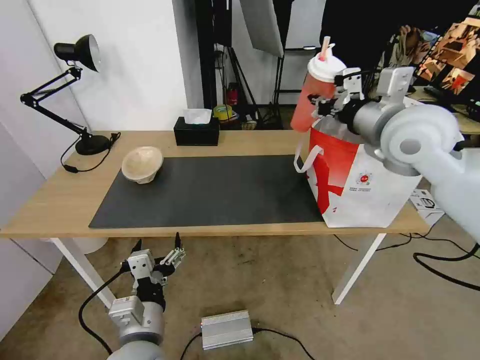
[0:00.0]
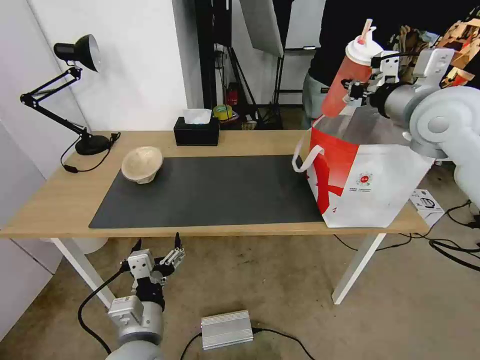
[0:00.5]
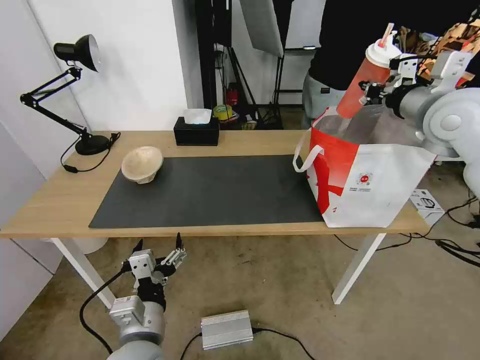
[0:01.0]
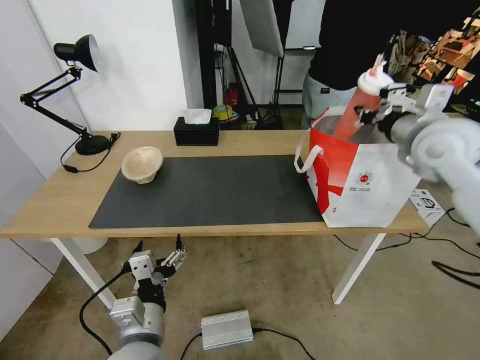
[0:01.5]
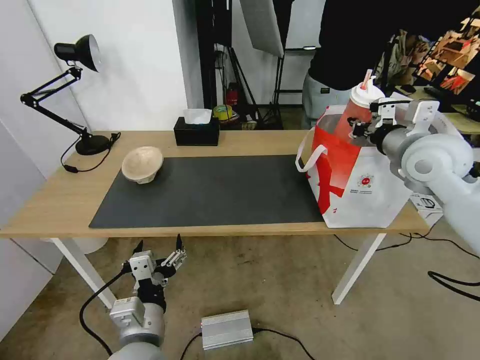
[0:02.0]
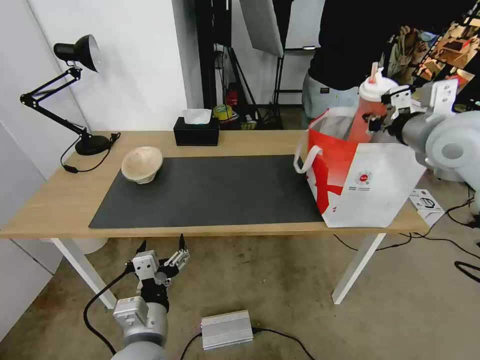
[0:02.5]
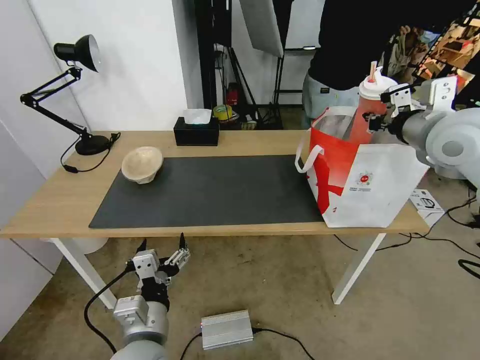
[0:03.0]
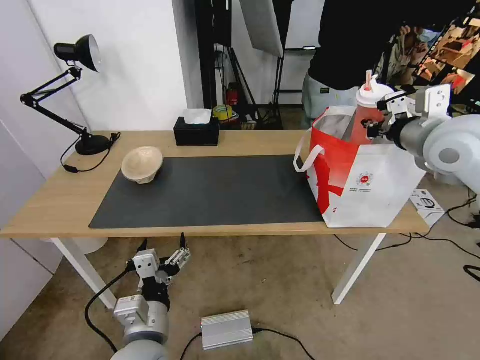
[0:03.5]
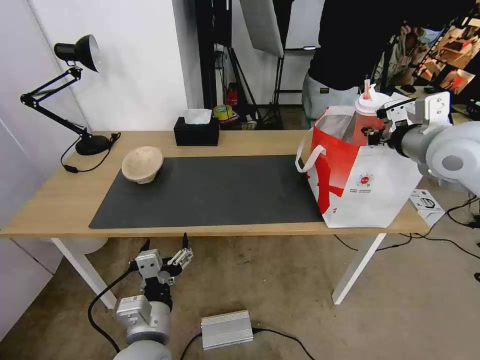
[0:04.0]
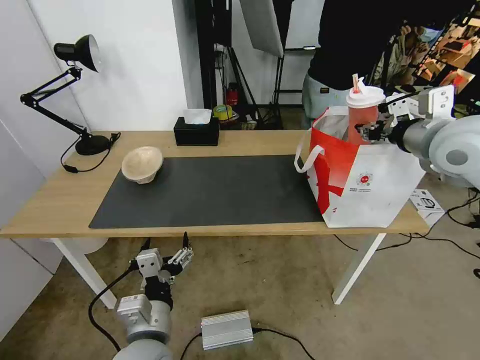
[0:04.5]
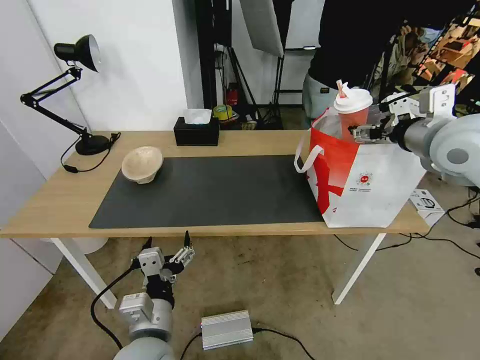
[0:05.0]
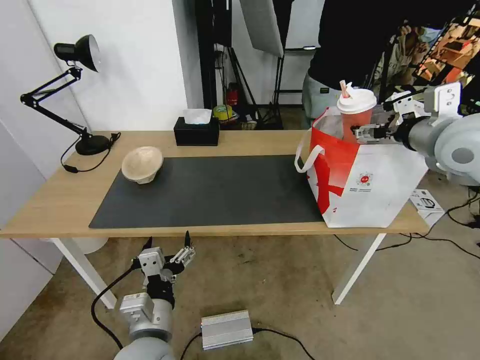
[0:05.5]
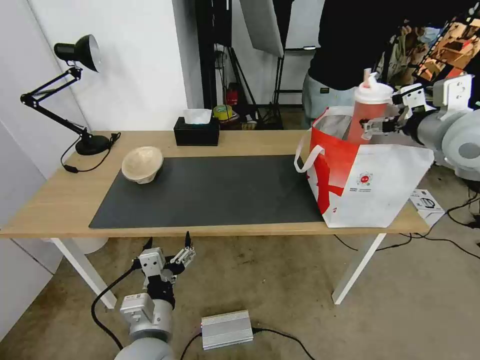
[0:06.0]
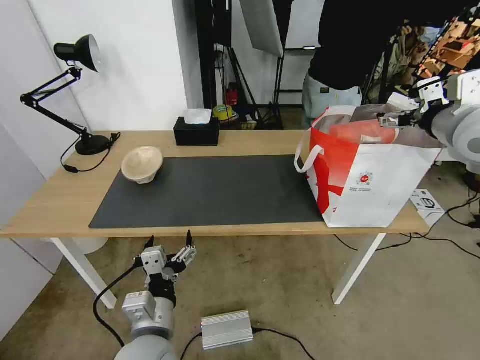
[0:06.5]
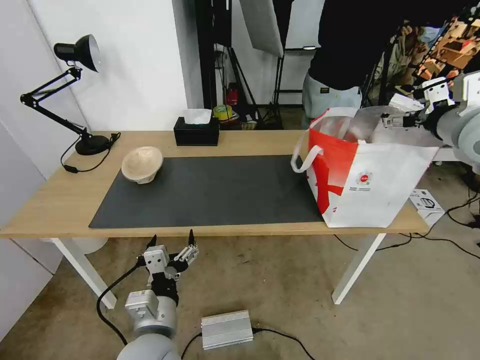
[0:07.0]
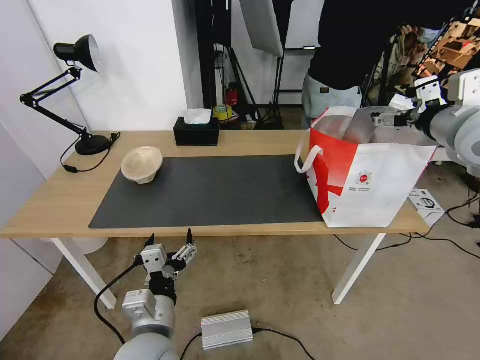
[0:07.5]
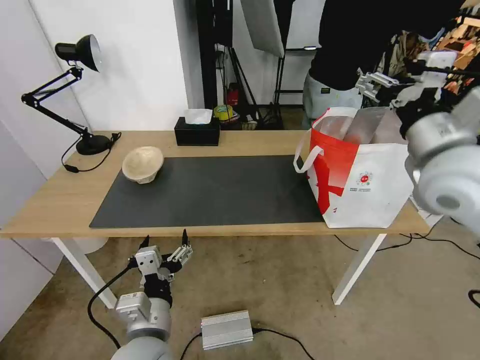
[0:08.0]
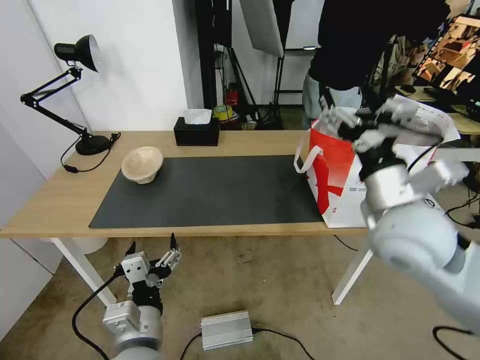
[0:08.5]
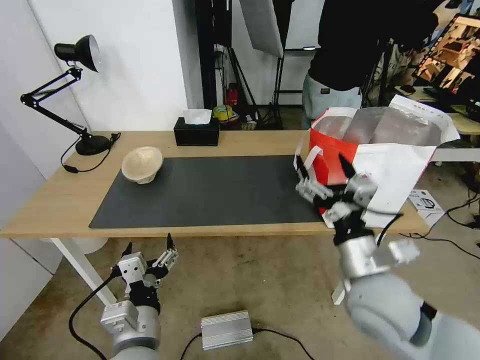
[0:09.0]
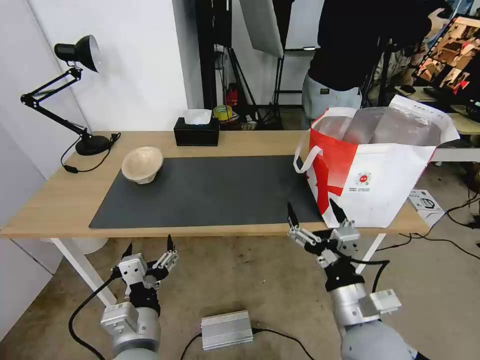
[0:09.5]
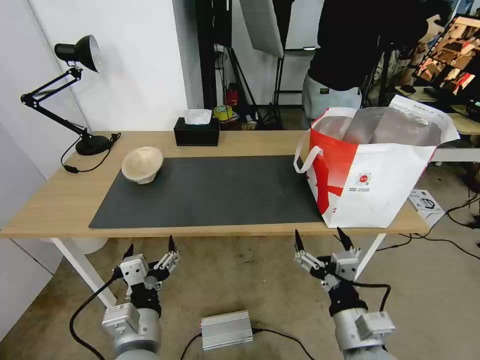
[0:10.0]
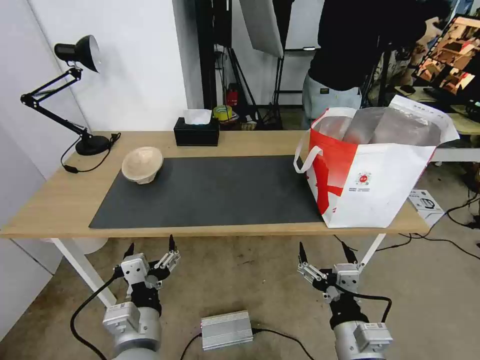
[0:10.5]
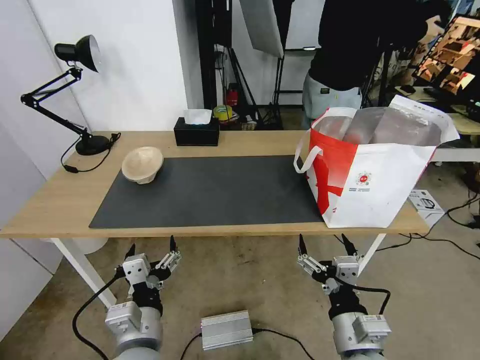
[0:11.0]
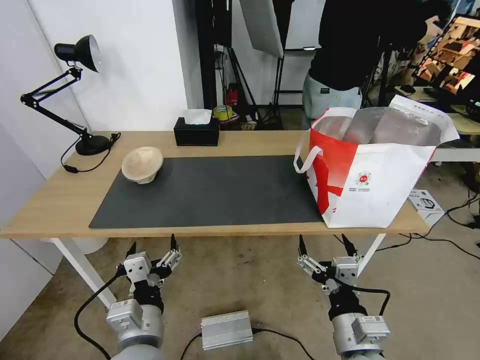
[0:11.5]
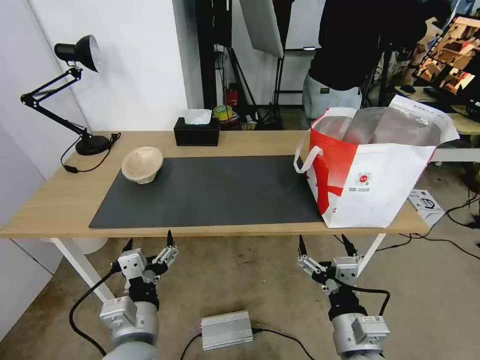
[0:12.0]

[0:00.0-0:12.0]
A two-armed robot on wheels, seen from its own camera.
Task of the whole recording: Pick up the trash from the table and place it into the takeout bag.
0:00.0 to 0:02.0: The right gripper travels to the right and downward by approximately 10 cm.
0:02.0 to 0:04.0: There are only small adjustments of the grippers.
0:04.0 to 0:06.0: The right gripper opens.
0:06.0 to 0:08.0: The right gripper heads backward and to the left, covering approximately 10 cm.
0:08.0 to 0:10.0: The right gripper heads downward and backward, covering some 30 cm.
0:10.0 to 0:12.0: The grippers move only a little.

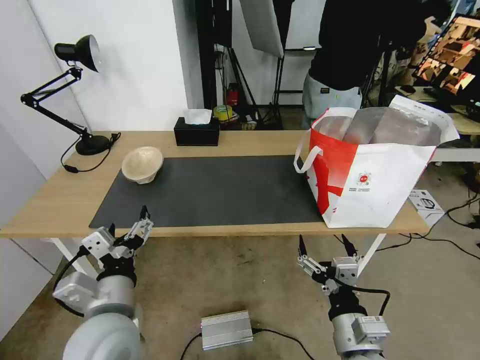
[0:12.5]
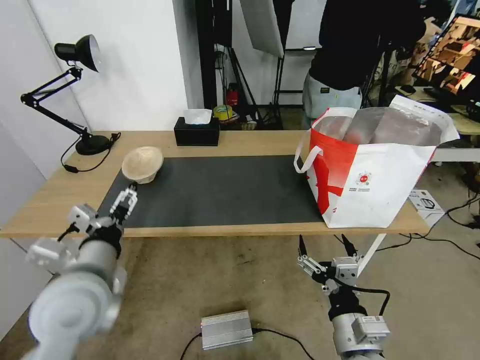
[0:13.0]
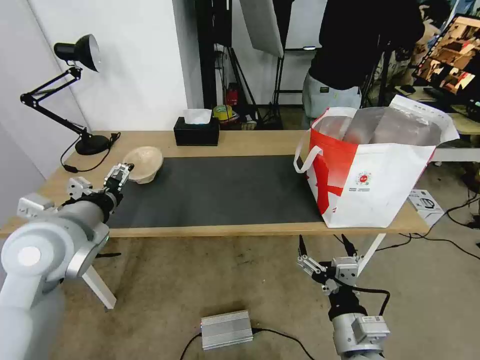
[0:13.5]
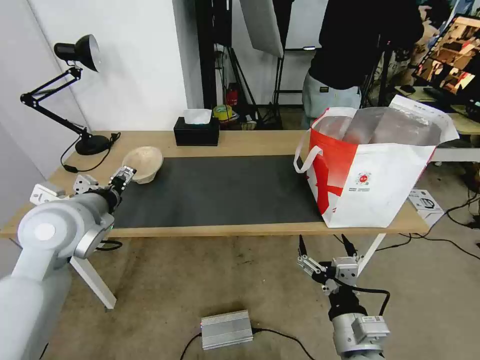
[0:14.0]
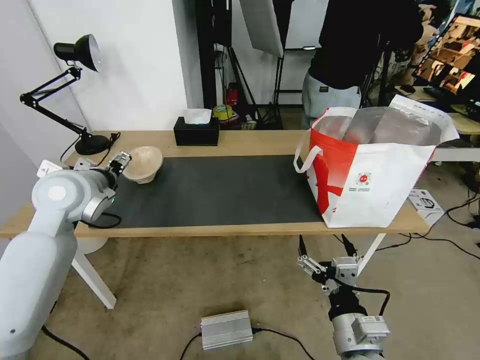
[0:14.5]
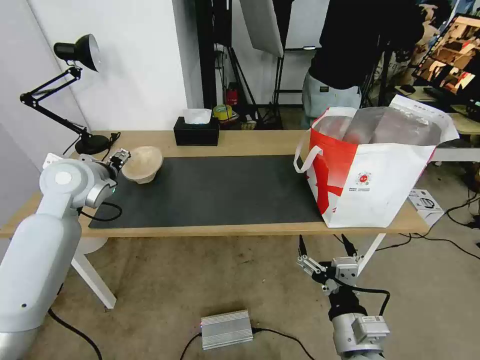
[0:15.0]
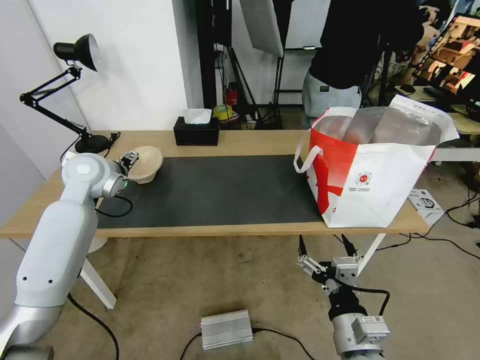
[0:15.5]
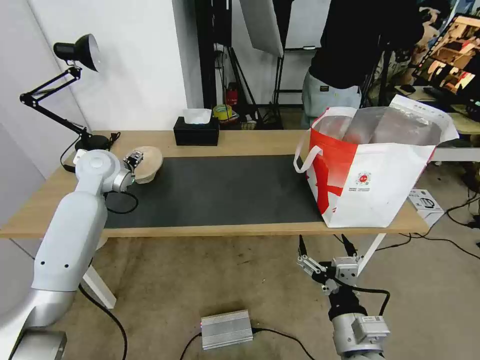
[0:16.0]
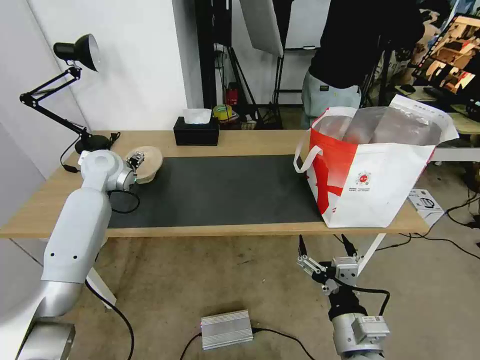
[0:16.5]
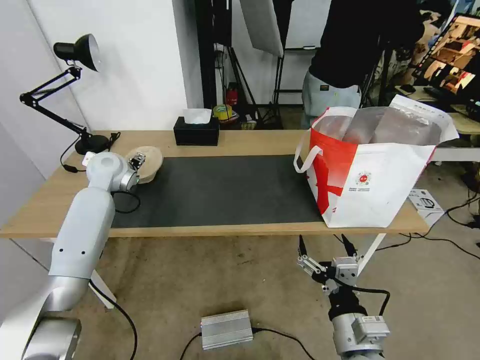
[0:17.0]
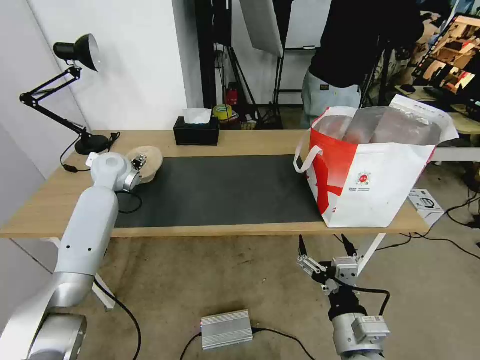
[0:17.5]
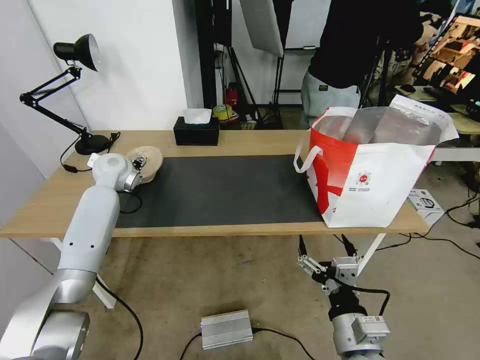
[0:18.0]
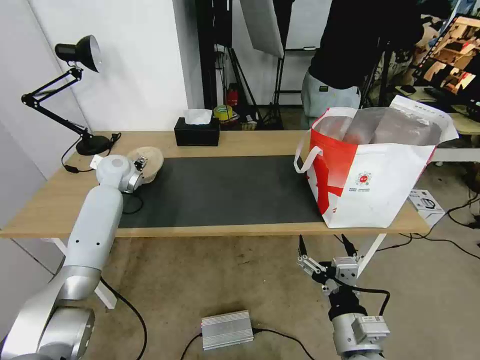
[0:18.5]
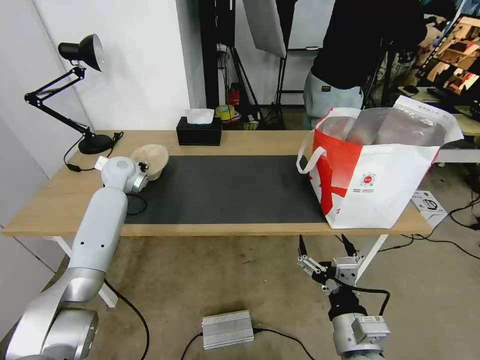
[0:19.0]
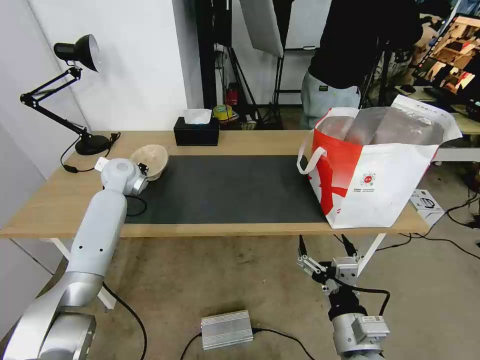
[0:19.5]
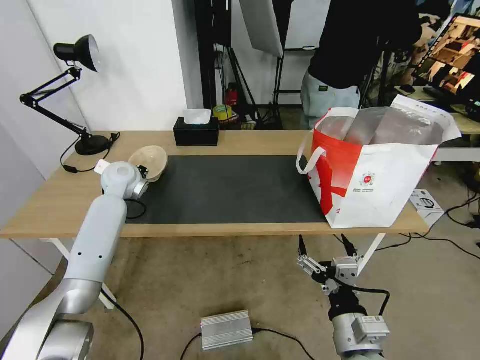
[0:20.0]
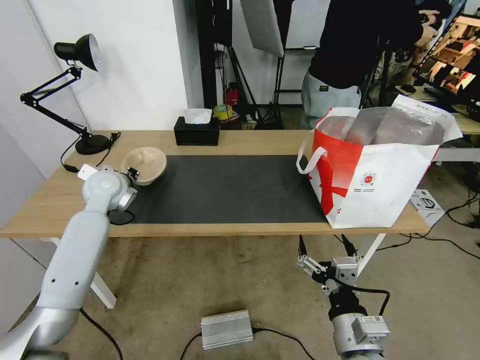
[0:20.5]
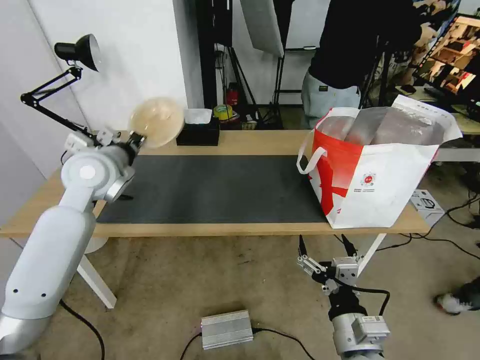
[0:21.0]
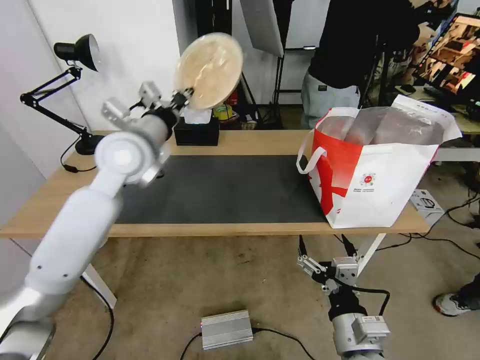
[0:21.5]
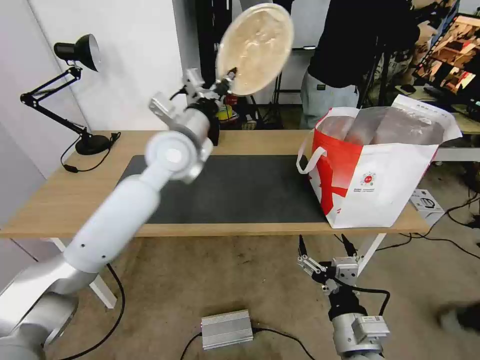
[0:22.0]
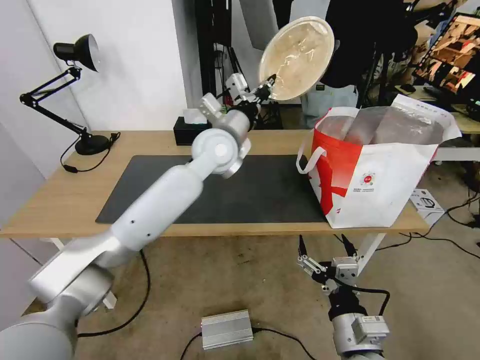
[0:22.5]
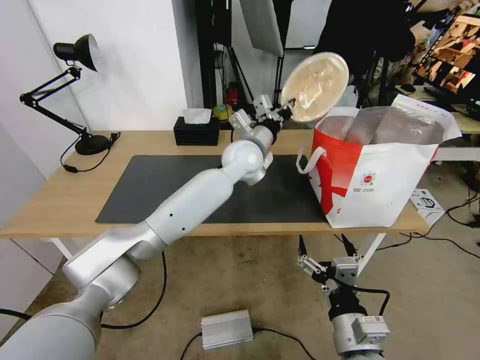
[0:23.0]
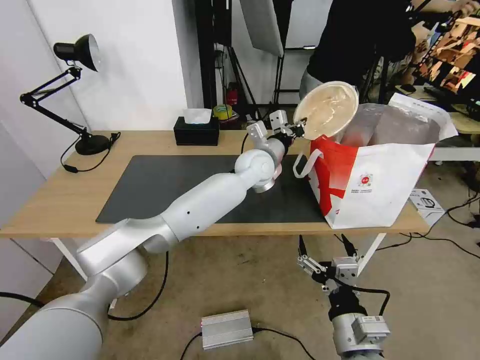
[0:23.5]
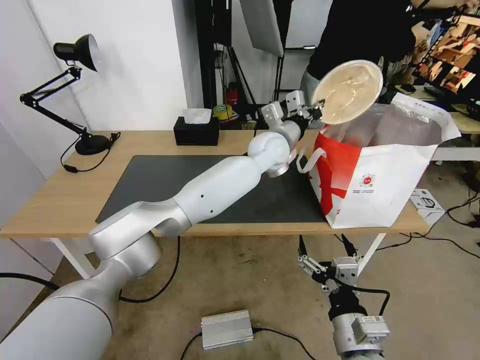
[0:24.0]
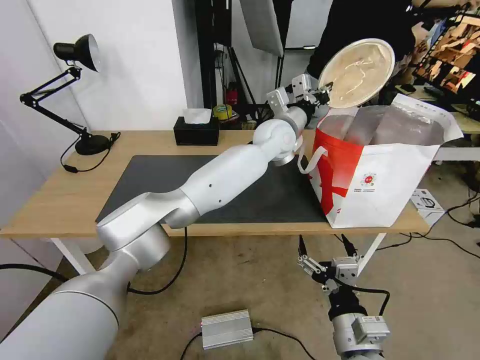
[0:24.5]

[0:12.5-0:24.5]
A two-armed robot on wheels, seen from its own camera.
Task of the whole recording: Pick up the trash from the table and place it into the takeout bag.
0:12.5 to 0:14.5: The left gripper is displaced forward, upward and to the left by about 25 cm.
0:14.5 to 0:16.5: The left gripper is displaced forward by about 15 cm.
0:16.5 to 0:18.5: The left gripper changes place by about 5 cm.
0:18.5 to 0:20.5: The left gripper travels backward by about 10 cm, and closes.
0:20.5 to 0:22.5: The left gripper travels to the right by about 25 cm.
0:22.5 to 0:24.5: The left gripper heads to the right and forward, covering approximately 15 cm.

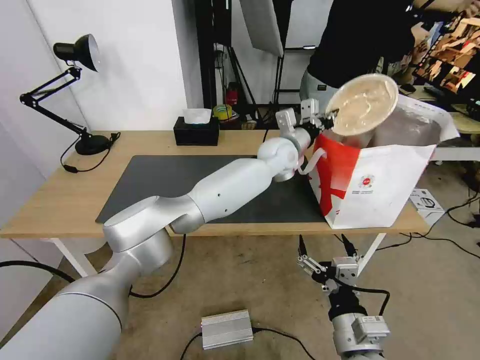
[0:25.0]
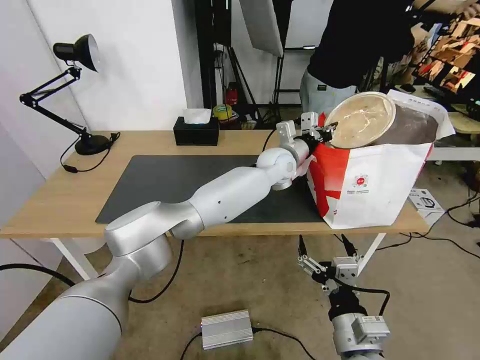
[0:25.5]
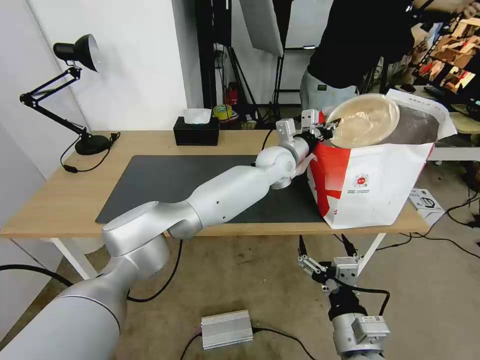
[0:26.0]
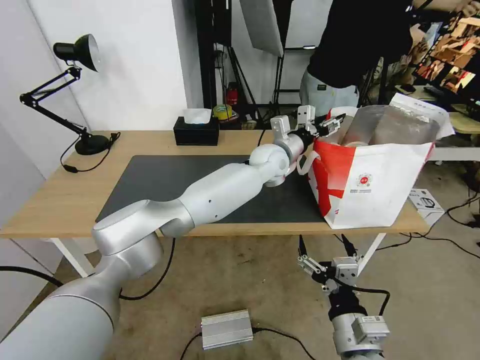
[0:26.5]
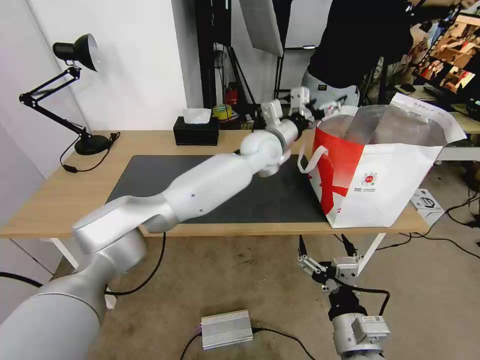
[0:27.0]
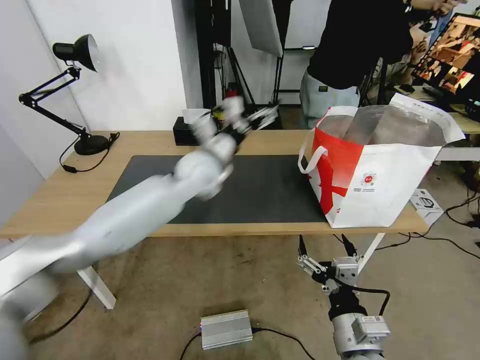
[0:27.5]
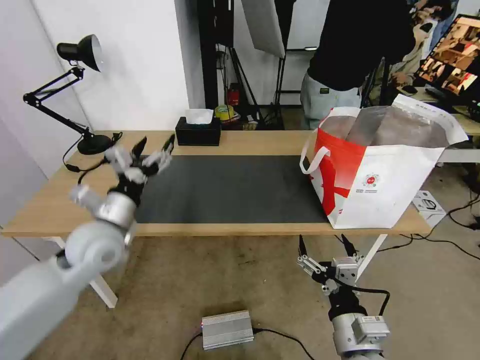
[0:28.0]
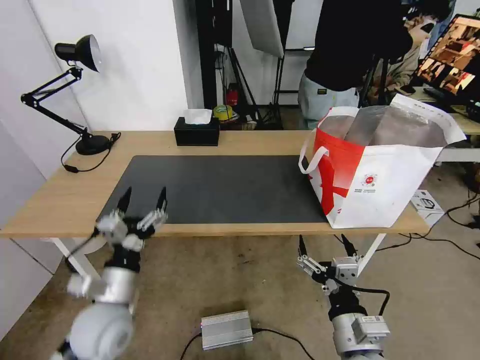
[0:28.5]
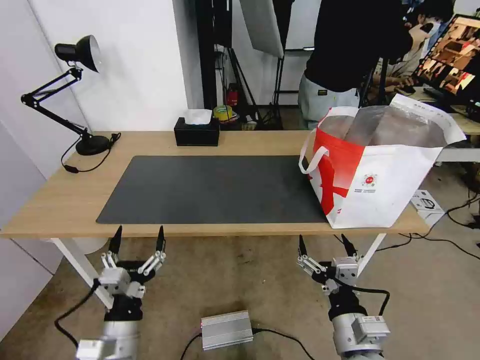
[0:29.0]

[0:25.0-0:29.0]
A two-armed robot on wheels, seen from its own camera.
Task of the whole recording: Pick up the trash from the table and place it into the takeout bag.
0:25.0 to 0:27.0: The left gripper shifts by roughly 5 cm, and opens its fingers.
0:27.0 to 0:29.0: The left gripper is displaced backward, to the left and downward by roughly 50 cm.
